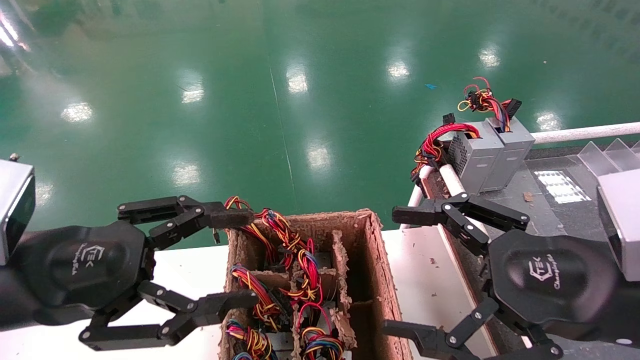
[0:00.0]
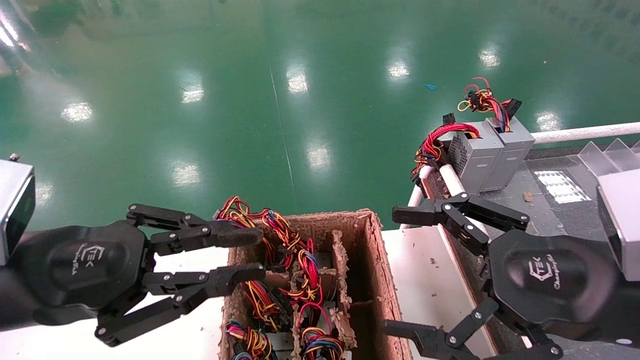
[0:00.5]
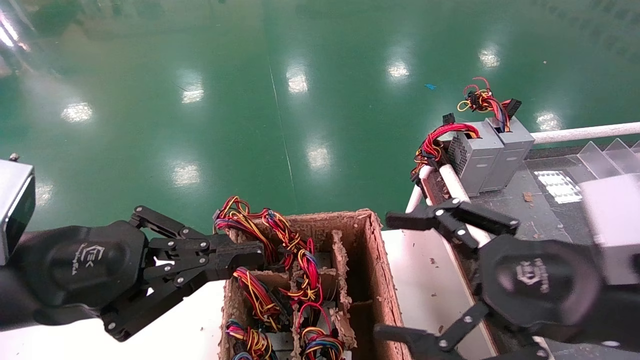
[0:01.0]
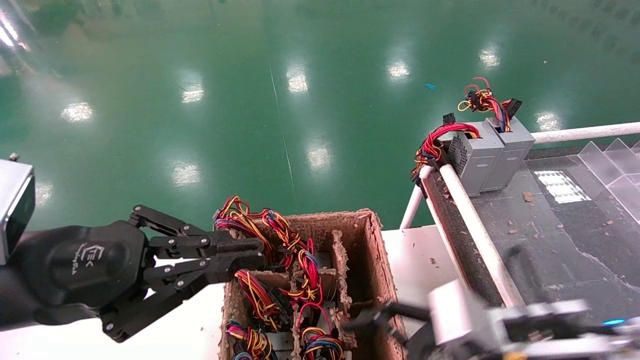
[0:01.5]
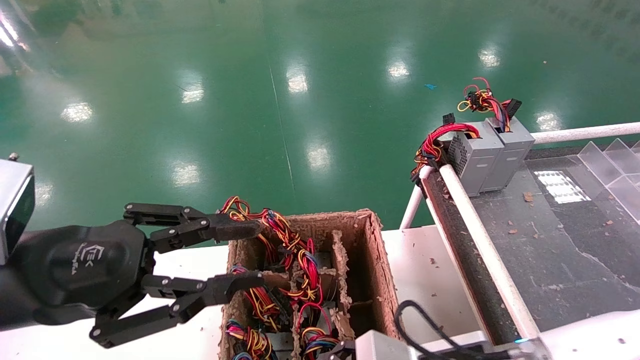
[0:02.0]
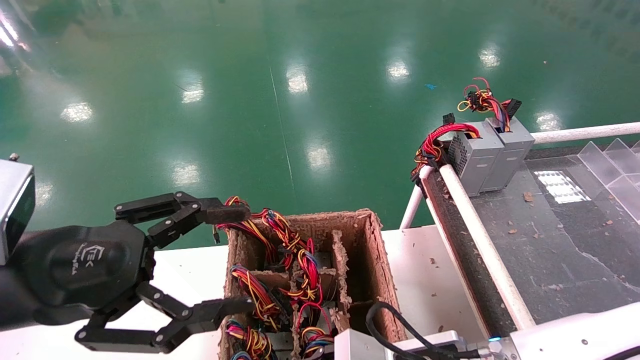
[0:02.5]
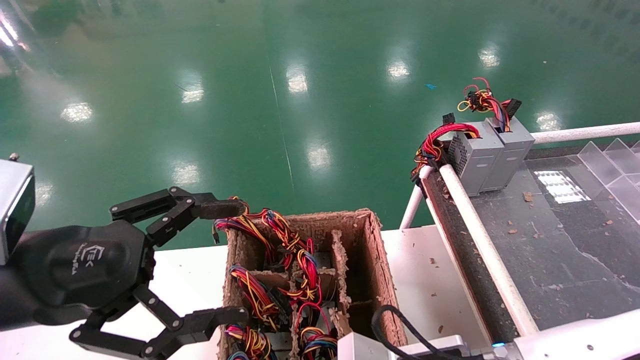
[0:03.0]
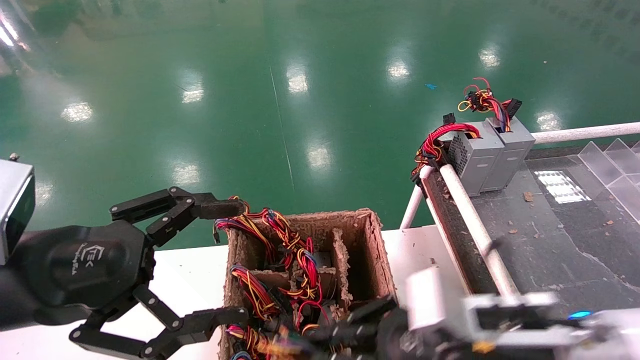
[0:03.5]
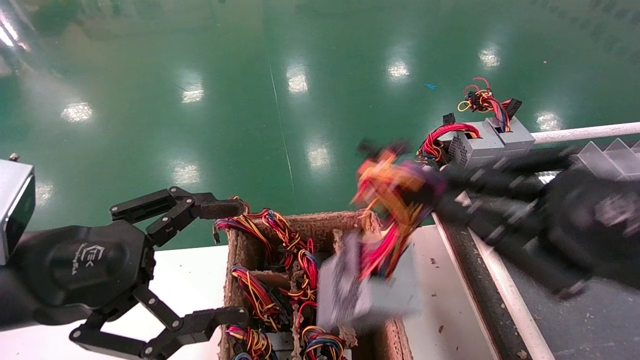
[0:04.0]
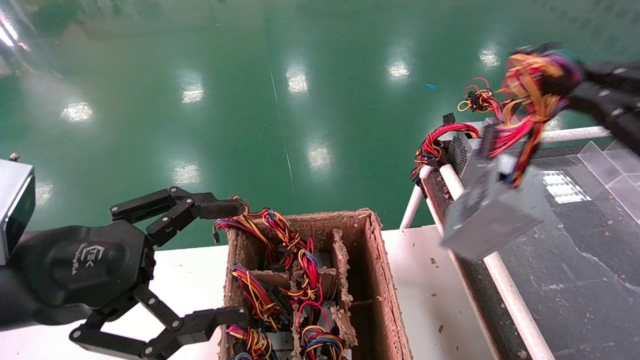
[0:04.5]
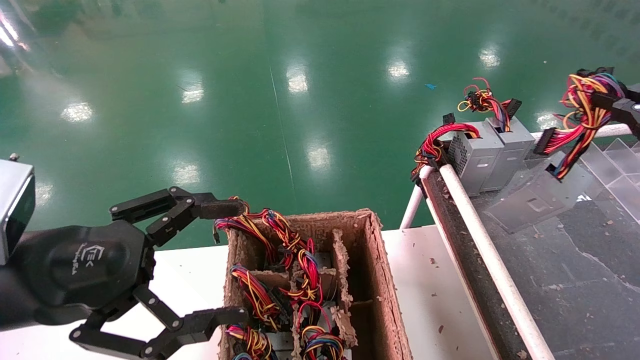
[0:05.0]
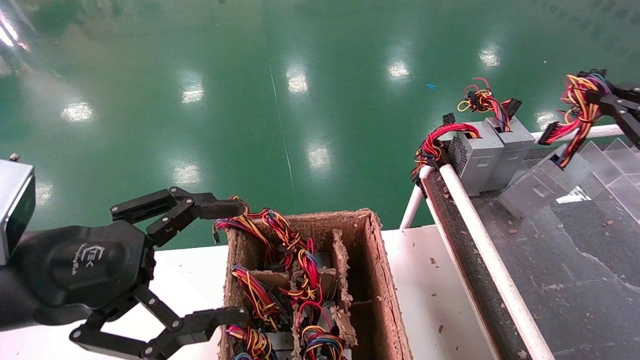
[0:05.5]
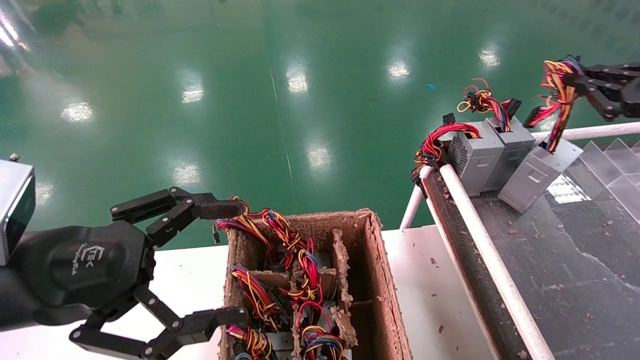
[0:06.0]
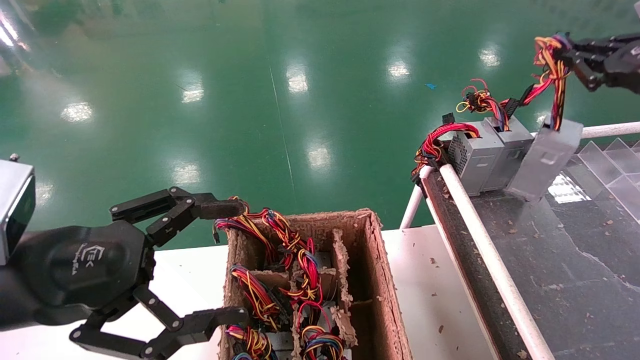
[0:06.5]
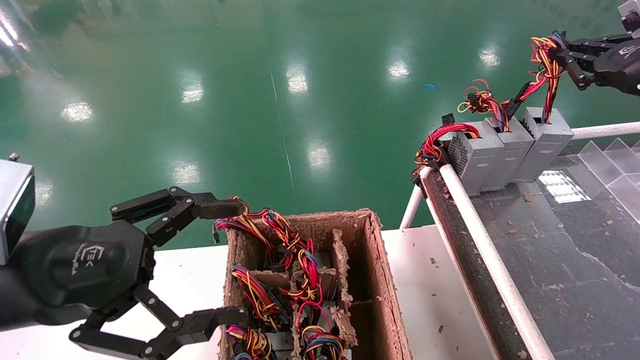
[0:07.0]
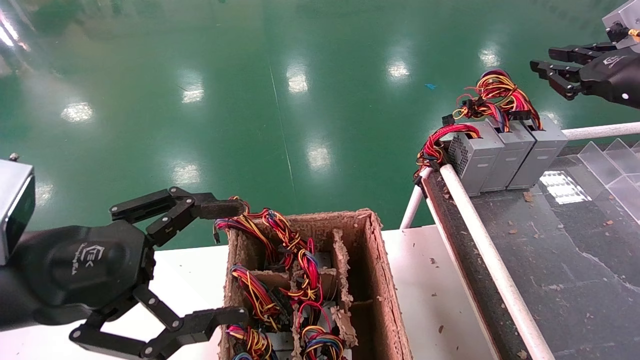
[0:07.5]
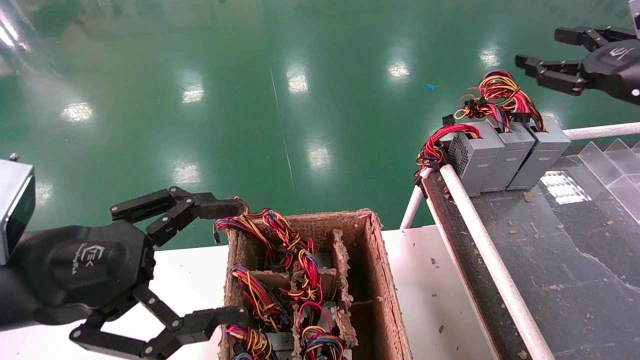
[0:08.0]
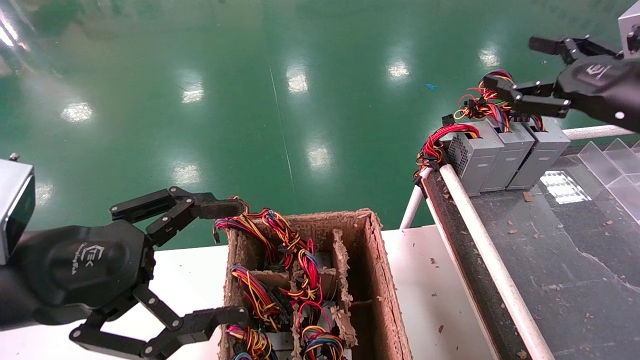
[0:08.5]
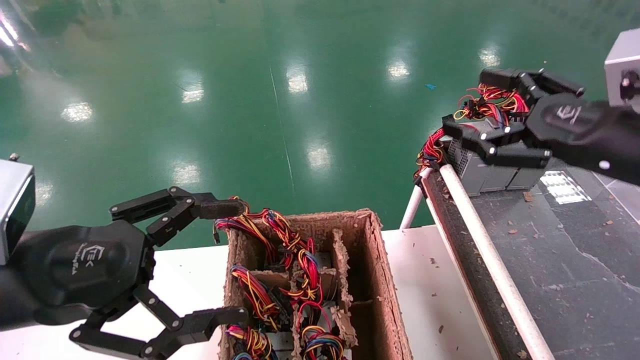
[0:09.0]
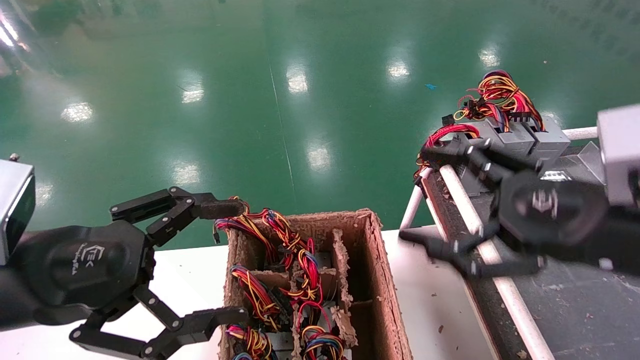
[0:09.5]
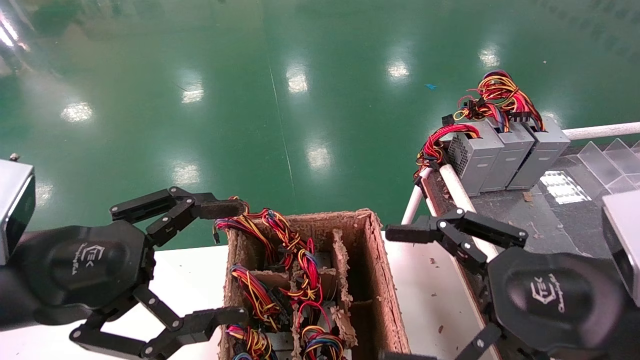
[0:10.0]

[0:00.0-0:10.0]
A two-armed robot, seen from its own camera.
Step, 0:01.5 to 0:03.5: Grab and lift the power supply from the large box.
Step, 0:04.0 to 0:07.5: Place the power supply on the operating table.
0:00.0 to 0:02.0: The right gripper heads downward and to the left, covering about 15 cm. The left gripper closes up.
0:02.0 to 0:04.0: The left gripper opens its fingers, while the right gripper is displaced upward and to the right by some 20 cm, and closes its fingers.
0:04.0 to 0:06.0: The right gripper goes approximately 25 cm to the right and forward.
0:06.0 to 0:08.0: The right gripper changes place by approximately 5 cm, and opens.
0:08.0 to 0:10.0: The right gripper heads backward, to the left and downward, covering about 30 cm, and opens up.
